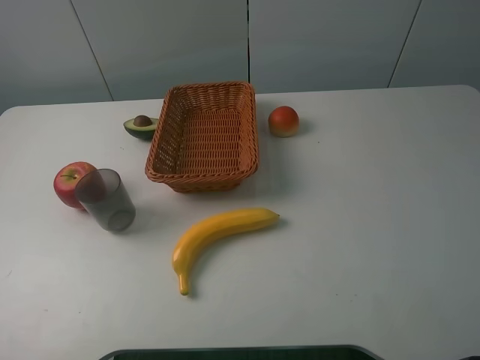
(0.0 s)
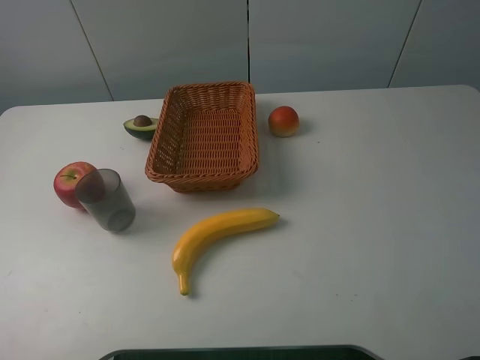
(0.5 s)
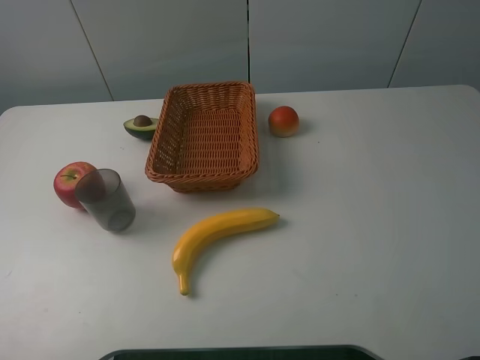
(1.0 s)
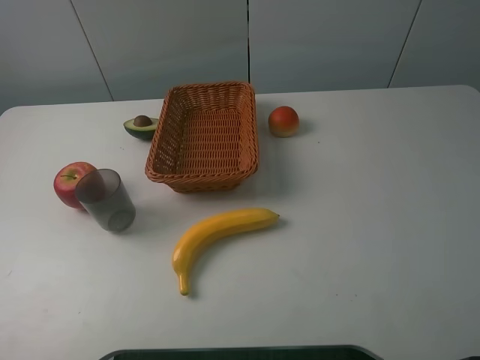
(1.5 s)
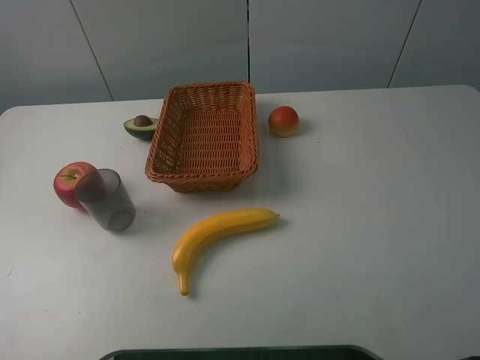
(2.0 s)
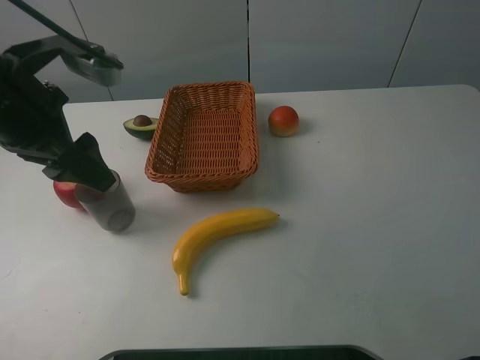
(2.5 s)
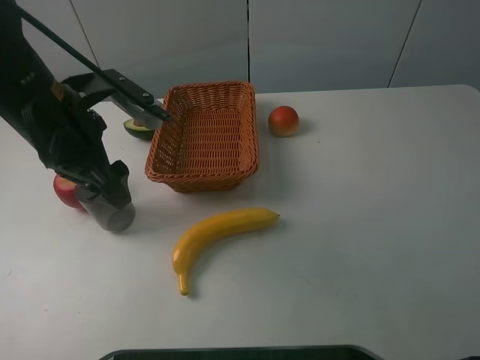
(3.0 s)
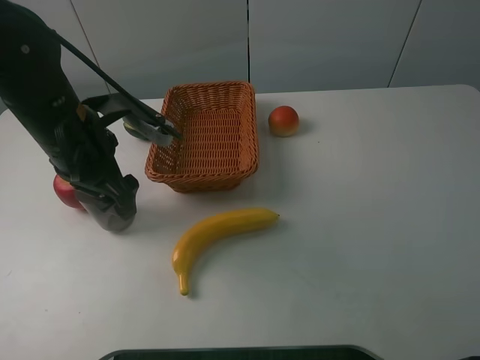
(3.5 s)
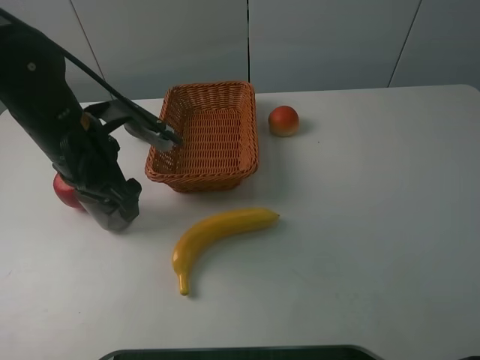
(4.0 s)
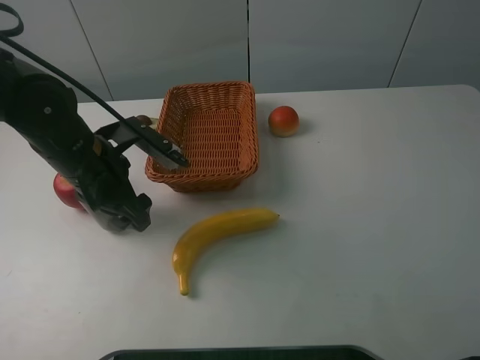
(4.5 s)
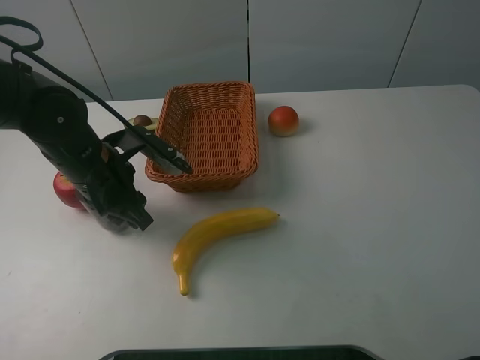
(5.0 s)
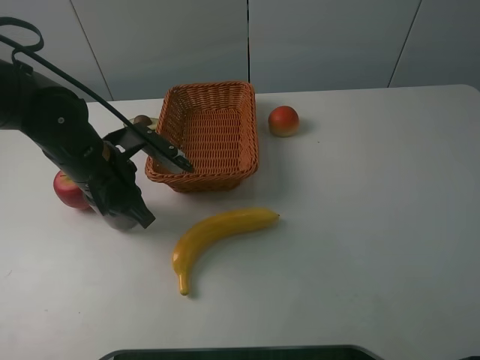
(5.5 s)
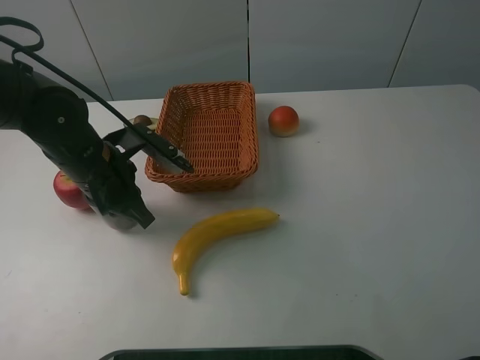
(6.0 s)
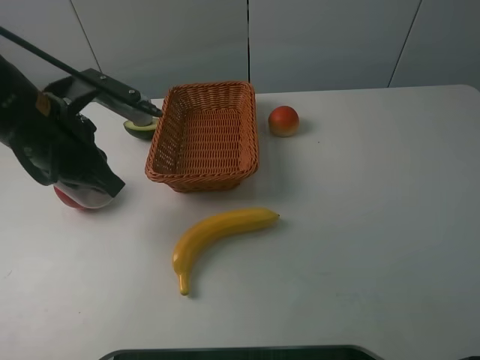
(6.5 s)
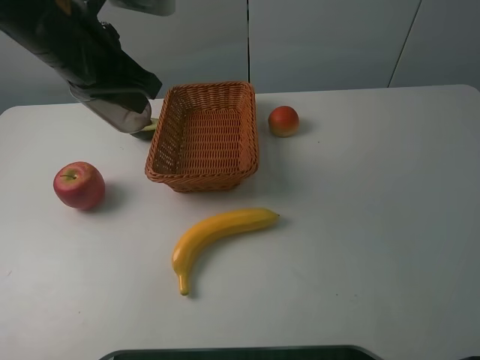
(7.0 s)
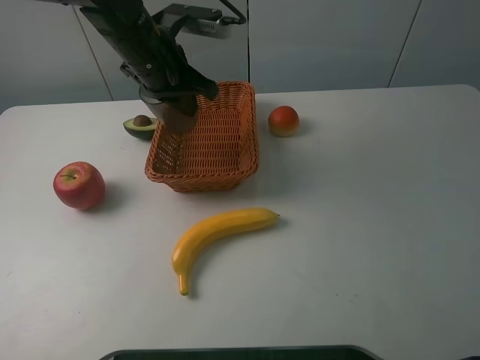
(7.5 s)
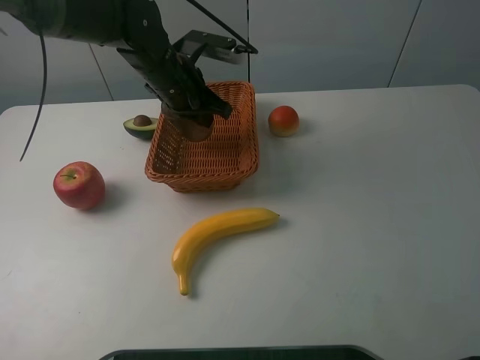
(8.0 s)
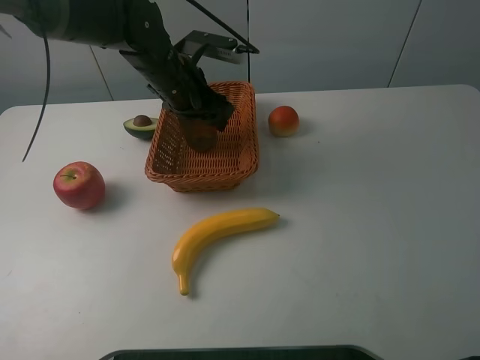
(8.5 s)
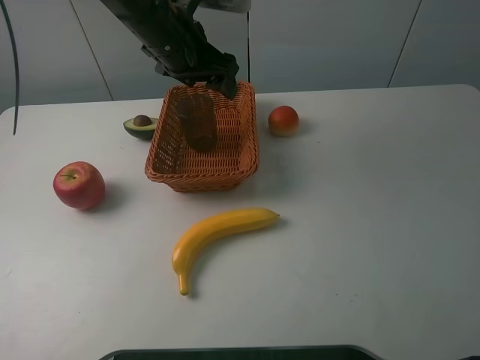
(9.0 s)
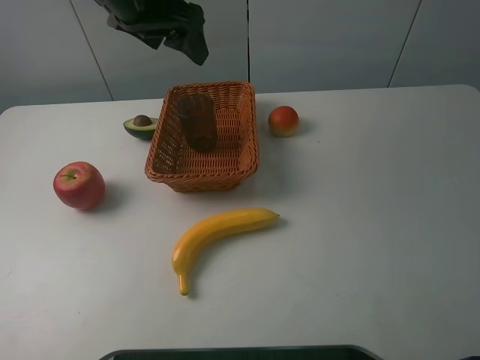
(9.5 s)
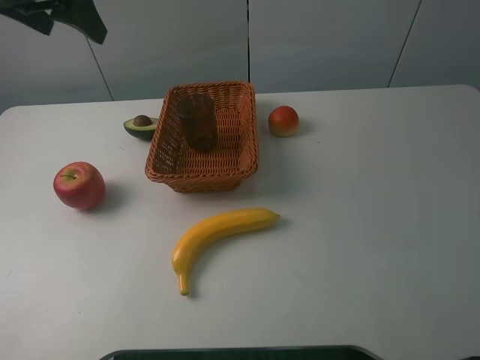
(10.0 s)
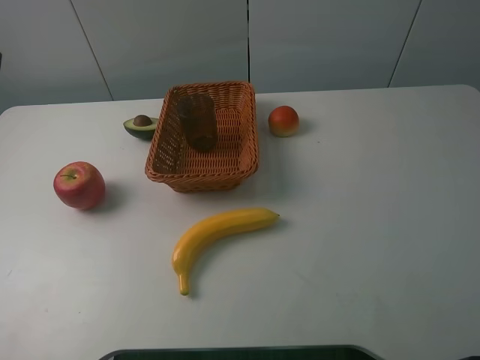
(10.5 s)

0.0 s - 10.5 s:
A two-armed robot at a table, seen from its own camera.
2.0 s - 4.0 s: The left gripper is displaced forward, downward and to the right by some 20 cm.
4.0 s - 6.5 s: The left gripper changes place by roughly 5 cm, and closes its fingers.
6.5 s - 8.5 s: The left gripper moves forward and to the right, some 20 cm, and opens up.
8.5 s - 10.5 s: The left gripper shifts some 35 cm to the left, backward and upward.

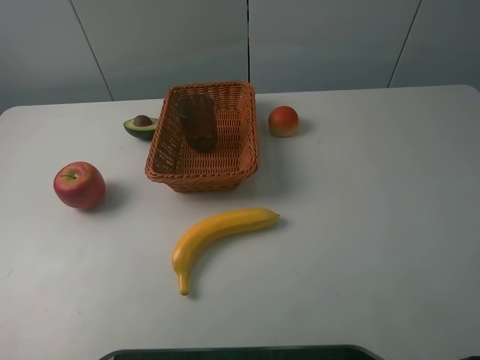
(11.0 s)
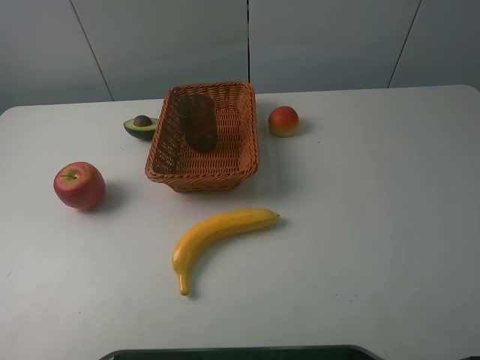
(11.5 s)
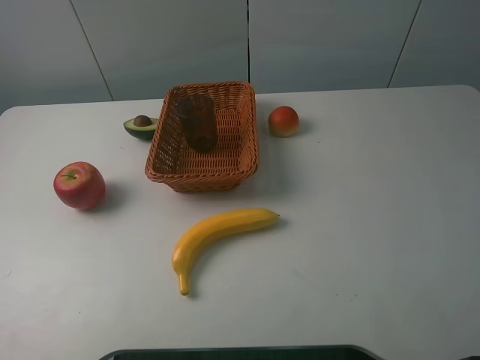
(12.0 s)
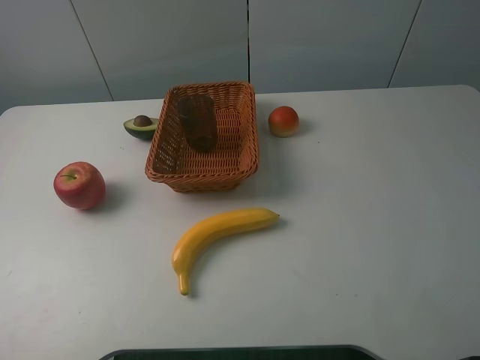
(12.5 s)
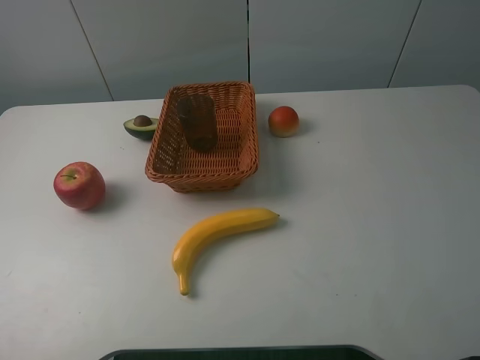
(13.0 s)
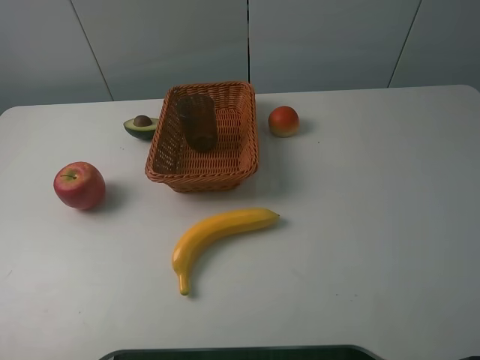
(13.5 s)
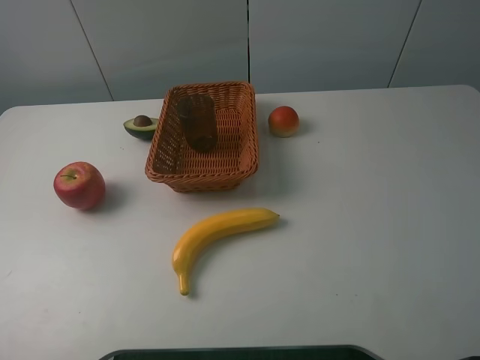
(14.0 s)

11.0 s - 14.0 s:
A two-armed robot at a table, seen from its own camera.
12.5 s - 14.0 s: Both grippers stay about where they are.

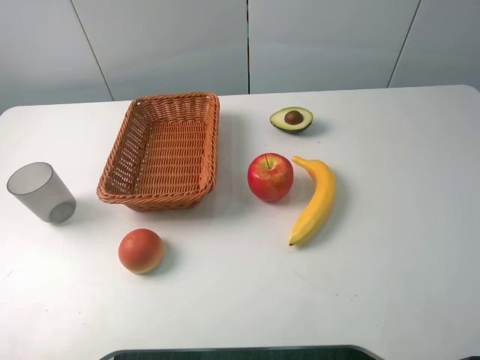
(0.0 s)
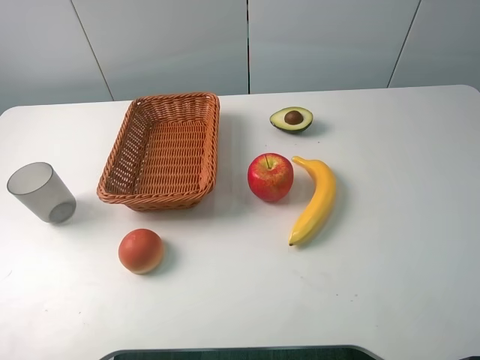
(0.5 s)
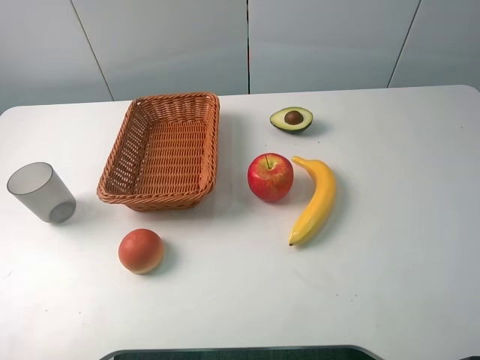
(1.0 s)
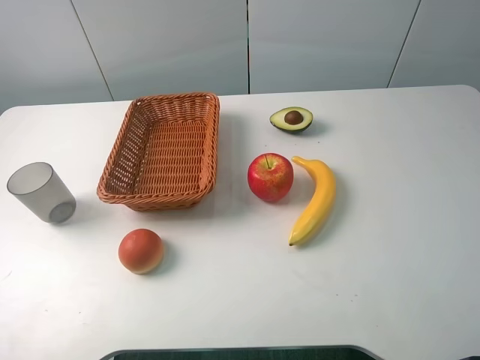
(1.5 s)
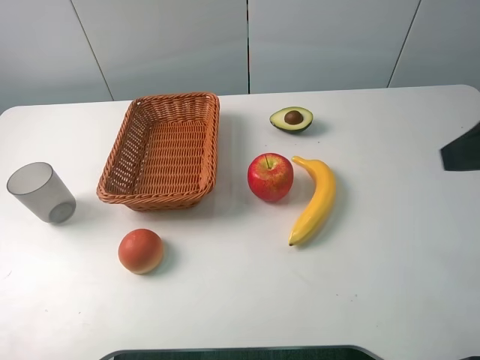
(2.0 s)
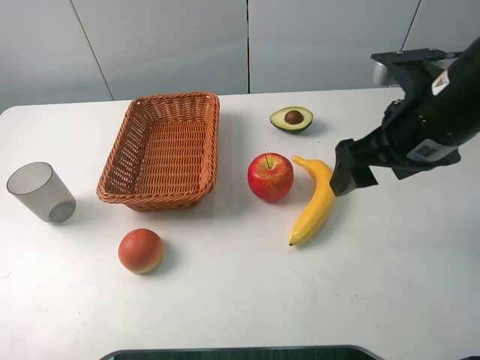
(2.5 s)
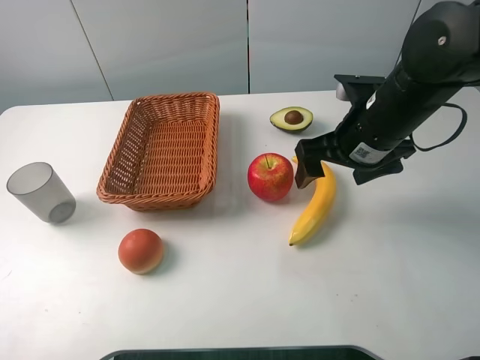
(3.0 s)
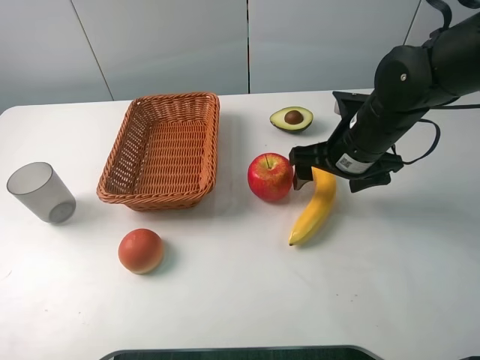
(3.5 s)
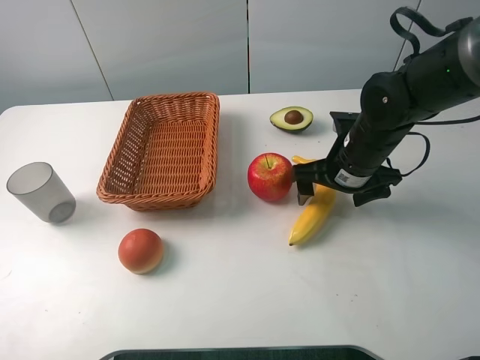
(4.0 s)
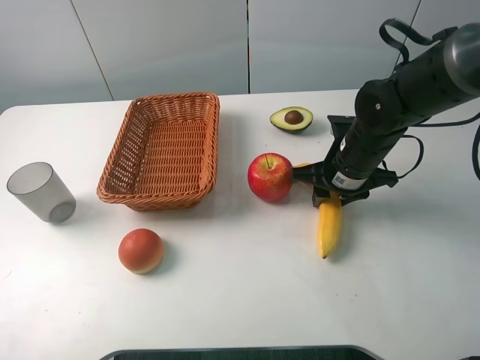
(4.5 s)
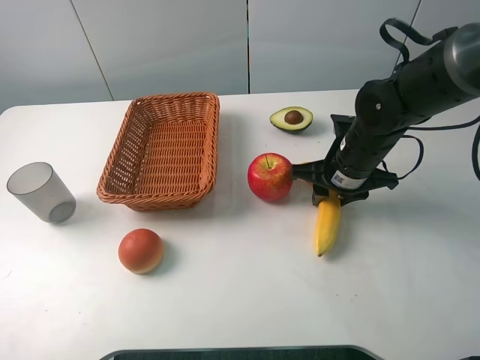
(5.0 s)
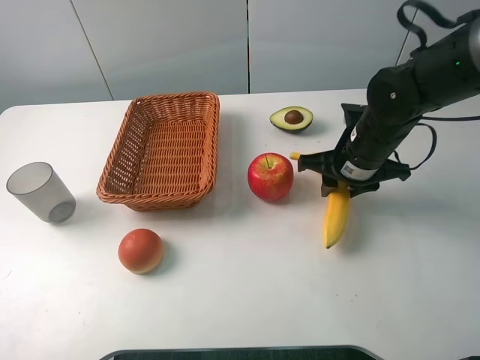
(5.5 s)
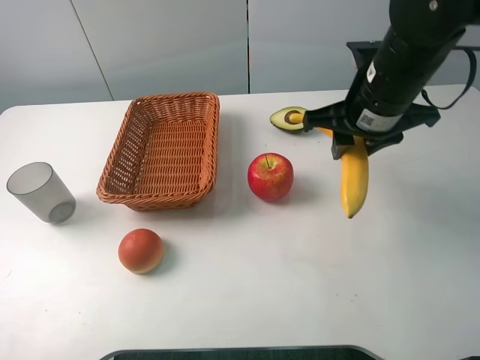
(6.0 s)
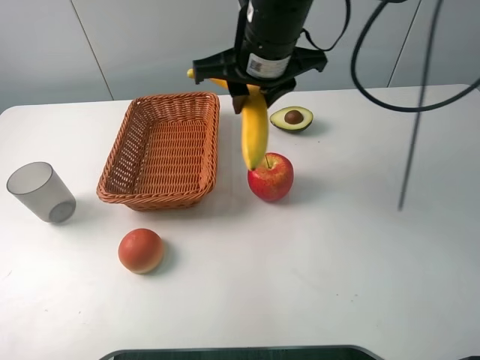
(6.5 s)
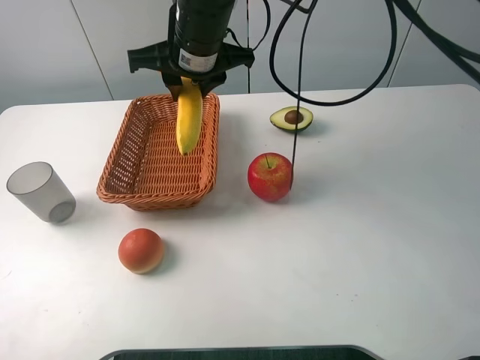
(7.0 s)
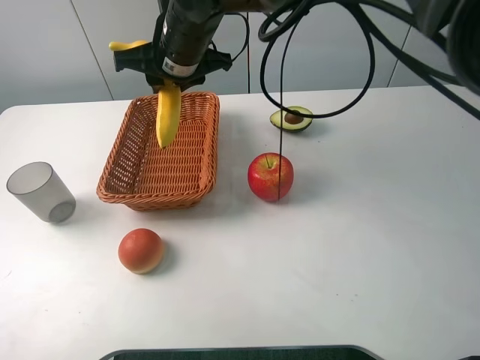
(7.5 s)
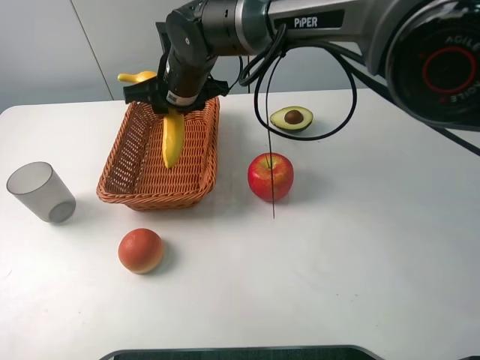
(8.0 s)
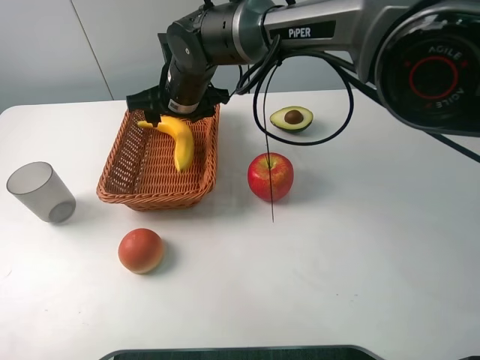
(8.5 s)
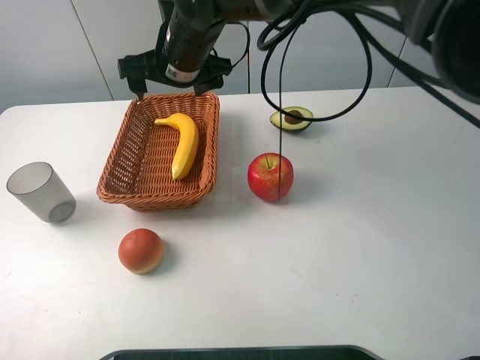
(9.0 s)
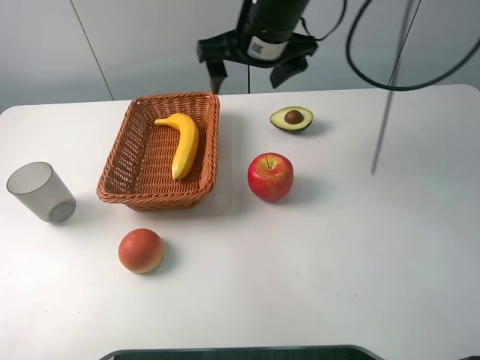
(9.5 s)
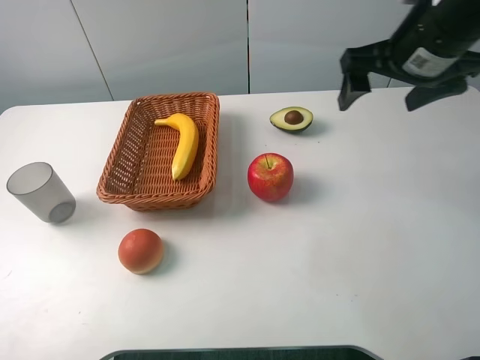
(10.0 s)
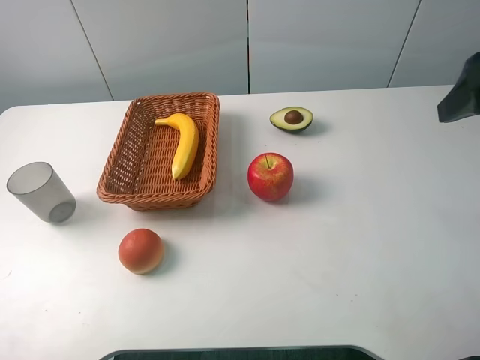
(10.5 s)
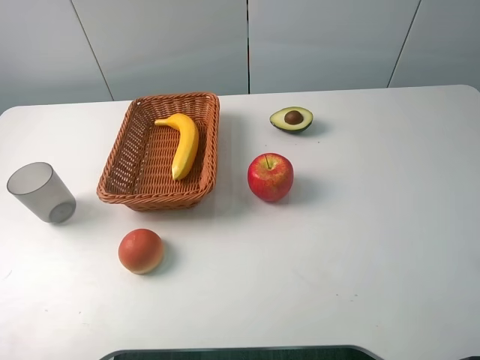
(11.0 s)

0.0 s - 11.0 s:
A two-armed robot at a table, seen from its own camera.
0.0 s - 2.0 s: The right gripper shifts approximately 15 cm forward.
2.0 s - 3.5 s: The right gripper heads downward, forward and to the left, covering roughly 25 cm.
3.5 s - 5.5 s: The right gripper closes up.
5.5 s - 7.5 s: The right gripper shifts about 25 cm to the left.
7.5 s - 9.0 s: The right gripper opens its fingers.
9.0 s - 11.0 s: The right gripper shifts some 40 cm to the right and backward.

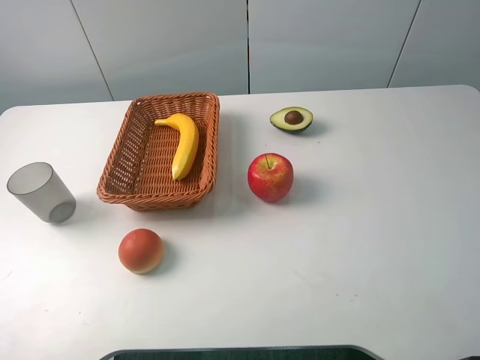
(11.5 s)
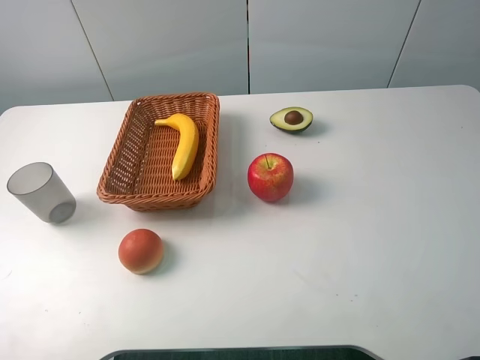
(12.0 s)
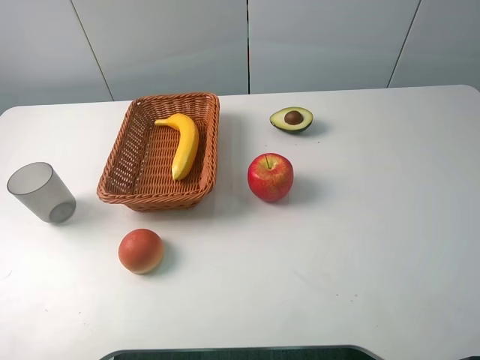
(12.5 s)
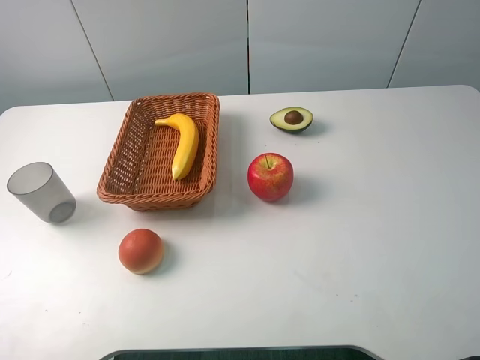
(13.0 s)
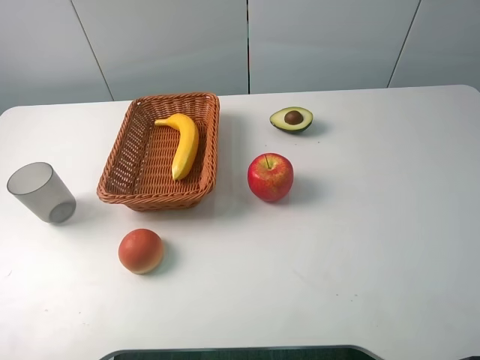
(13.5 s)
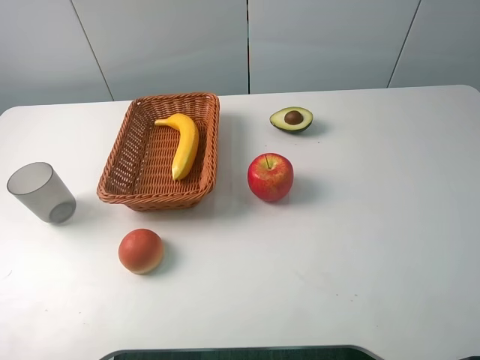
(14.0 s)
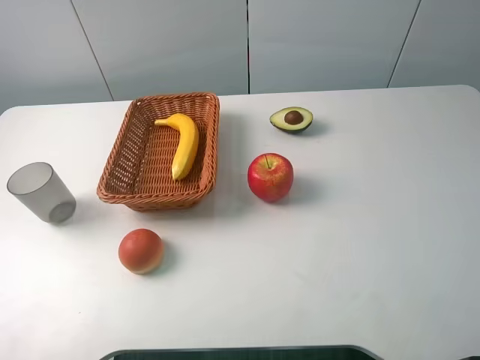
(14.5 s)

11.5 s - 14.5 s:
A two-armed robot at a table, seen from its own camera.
13.0 s - 14.5 s: Both grippers stay about where they are.
